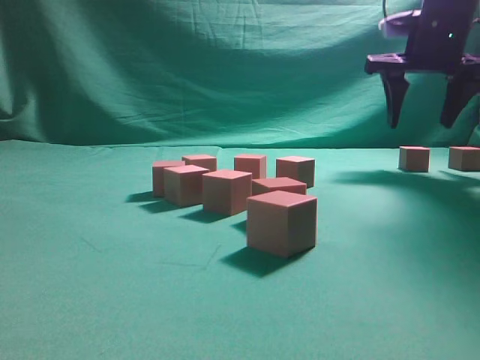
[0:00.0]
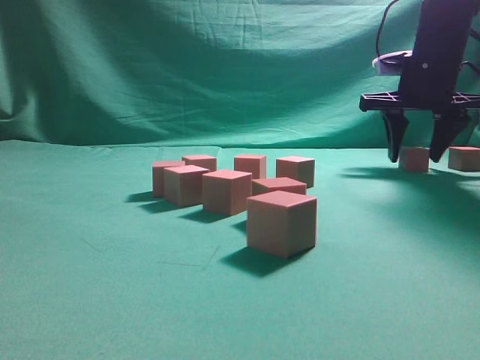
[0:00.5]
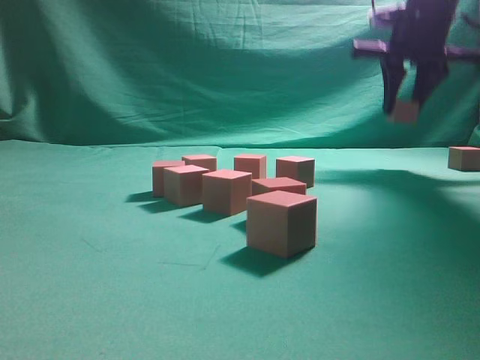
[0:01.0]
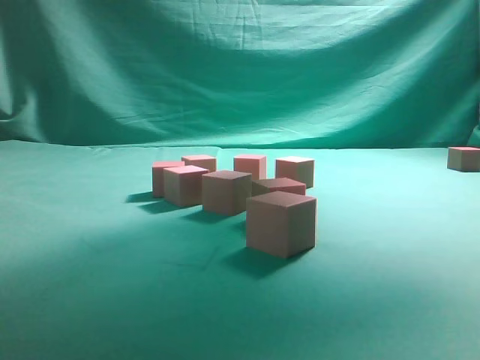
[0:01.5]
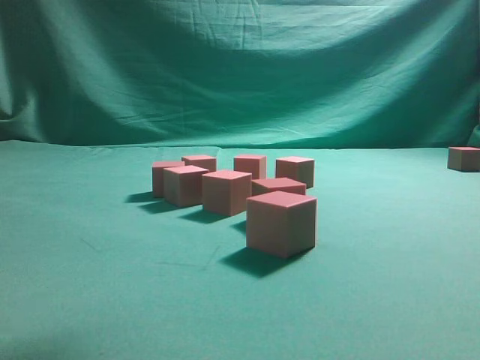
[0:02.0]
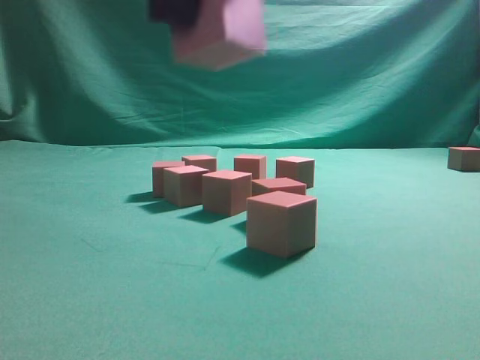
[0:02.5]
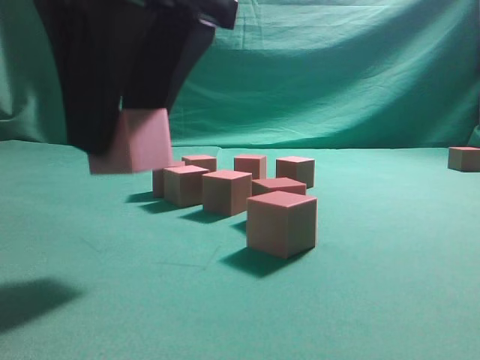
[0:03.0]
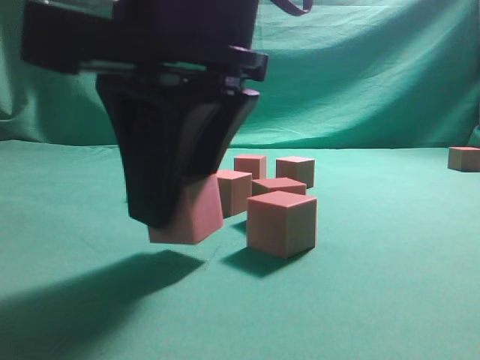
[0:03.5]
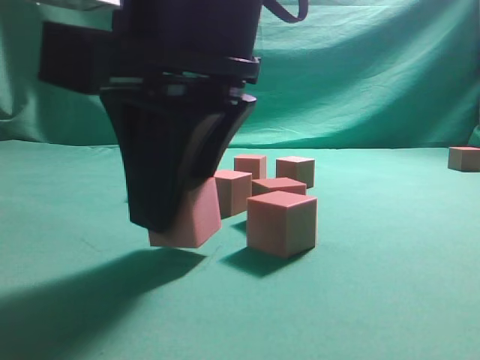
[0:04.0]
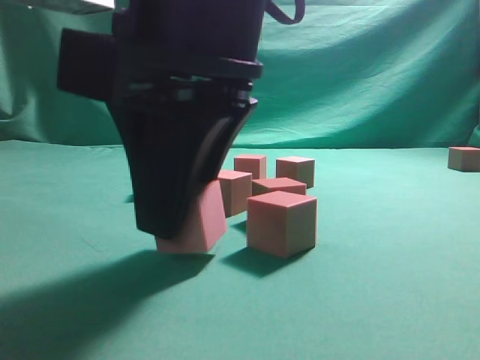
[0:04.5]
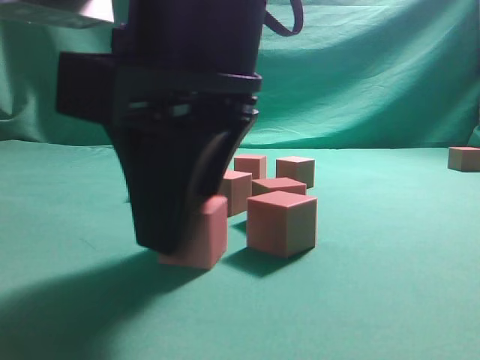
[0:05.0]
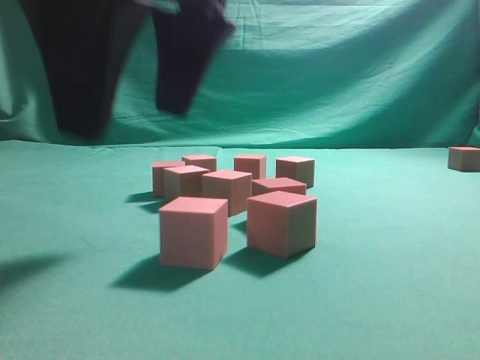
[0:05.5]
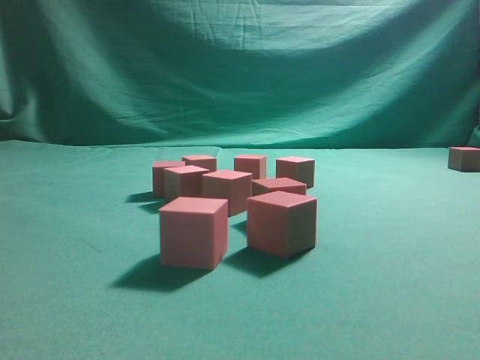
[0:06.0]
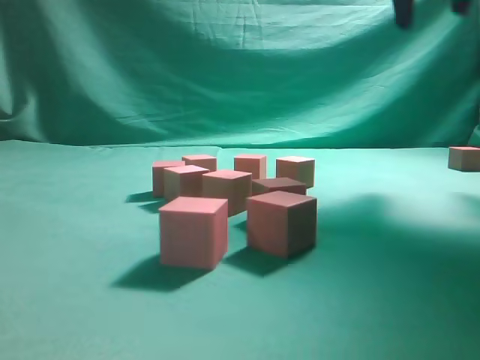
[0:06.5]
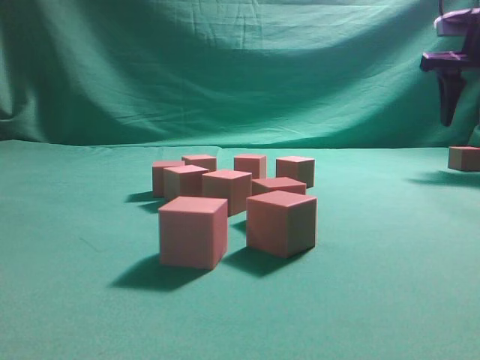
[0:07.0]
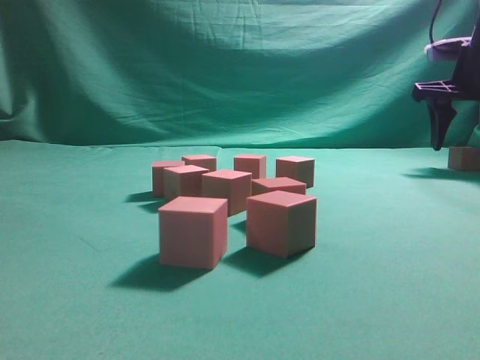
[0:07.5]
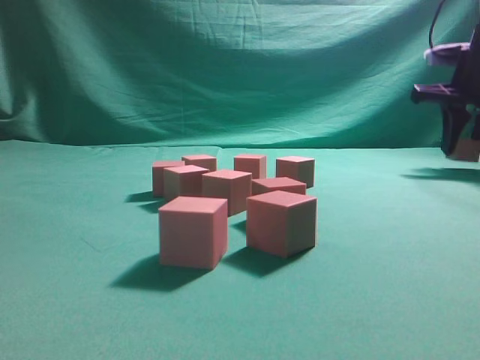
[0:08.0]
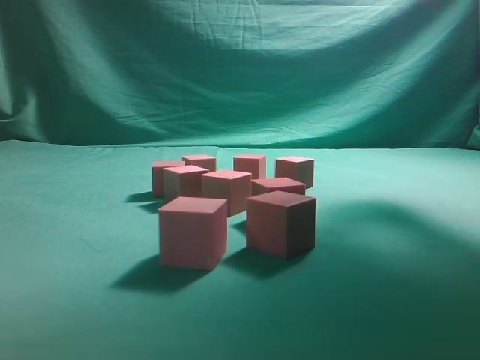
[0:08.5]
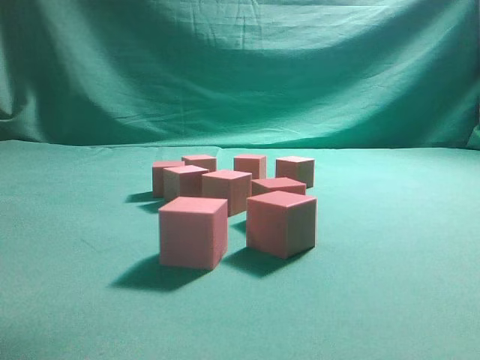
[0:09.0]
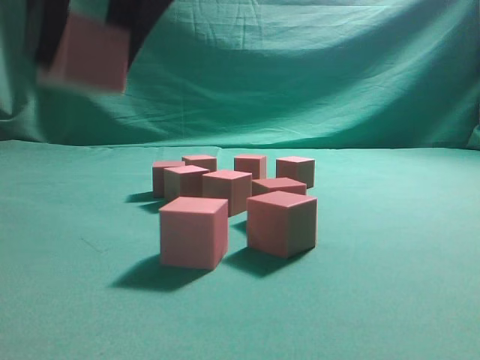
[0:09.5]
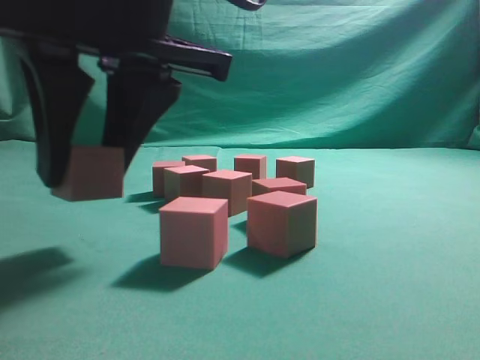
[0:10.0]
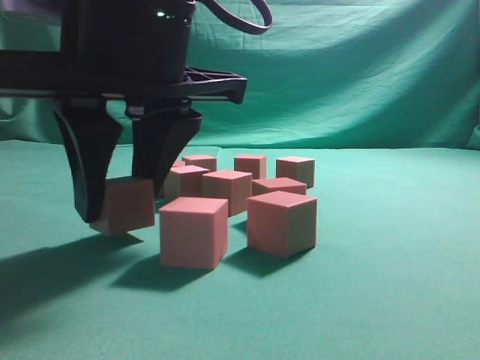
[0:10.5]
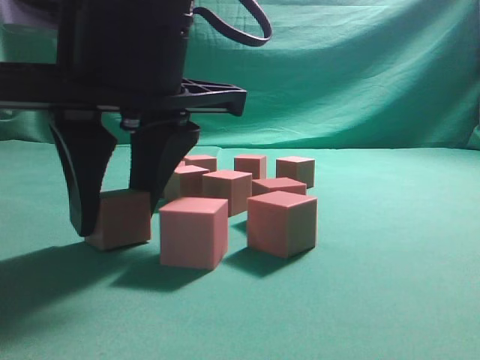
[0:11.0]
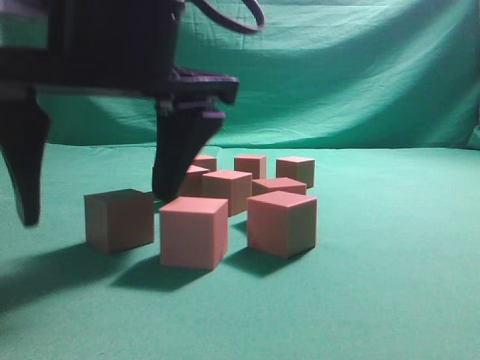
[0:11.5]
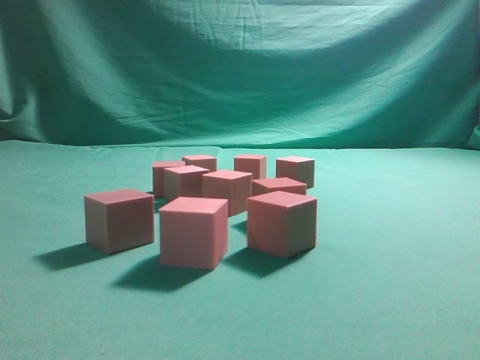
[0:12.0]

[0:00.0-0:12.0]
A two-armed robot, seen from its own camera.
Task of the whole recording: pick up the multiple cubes in two columns one by one and place them in another position on the table.
Step, 0:01.5 to 0:05.5: Place the block at the correct position to assemble the letter S.
Step, 0:06.0 to 0:08.0: Pick up the block on the table.
Step, 0:08.5 to 0:11.5: Place the block at the correct position to assemble the letter S.
0:00.0 to 0:02.0: The right gripper goes up and down, approximately 25 cm each way, reversing 2 times, and closes.
0:02.0 to 0:04.0: The right gripper travels downward and to the left by about 20 cm.
0:04.0 to 0:06.0: The right gripper shifts some 20 cm upward, and opens up.
0:06.0 to 0:08.0: The right gripper goes about 40 cm to the right, forward and downward, and closes up.
0:08.0 to 0:10.0: The right gripper moves to the left and backward, approximately 50 cm.
0:10.0 to 0:12.0: The right gripper is displaced upward by about 15 cm, and opens and closes again.
